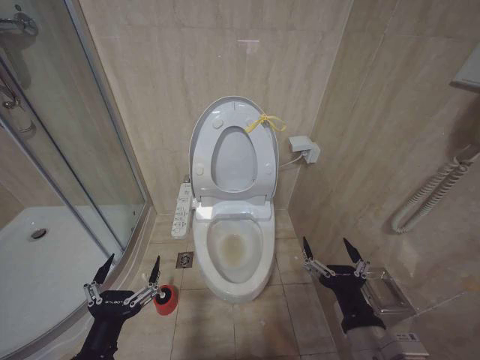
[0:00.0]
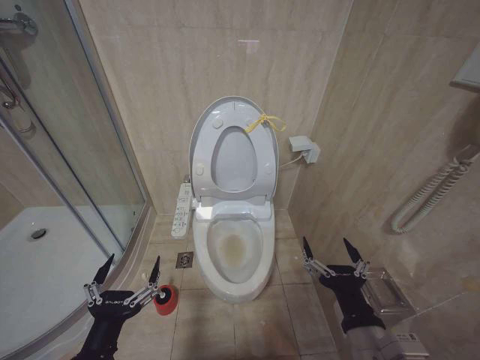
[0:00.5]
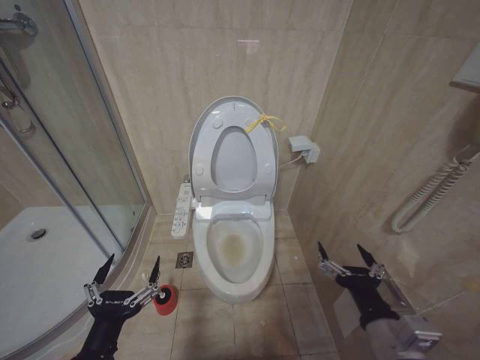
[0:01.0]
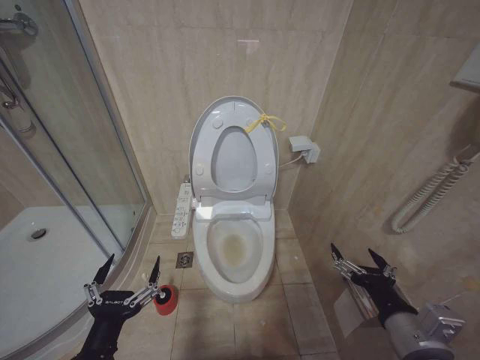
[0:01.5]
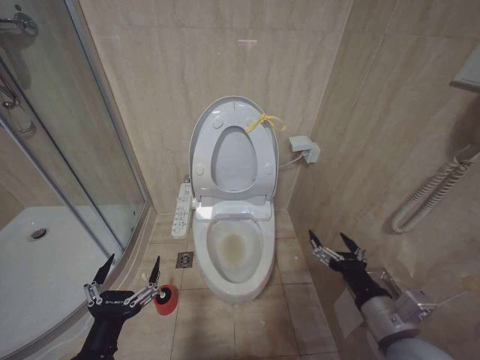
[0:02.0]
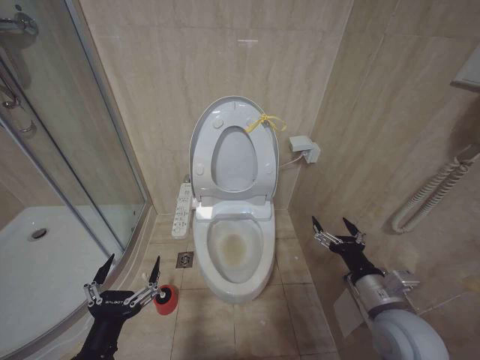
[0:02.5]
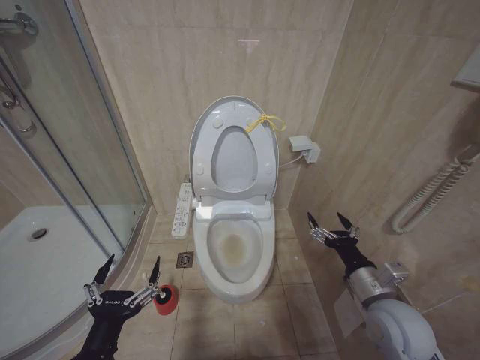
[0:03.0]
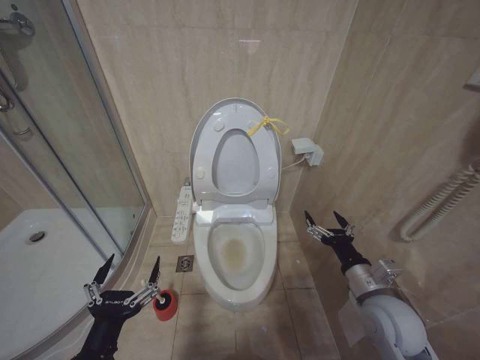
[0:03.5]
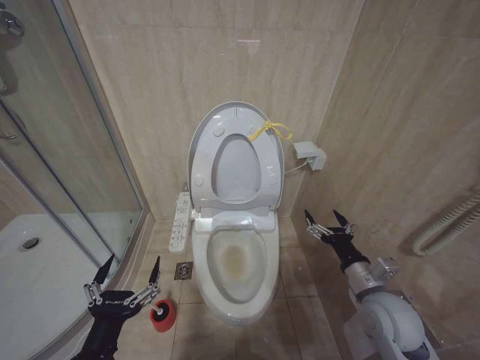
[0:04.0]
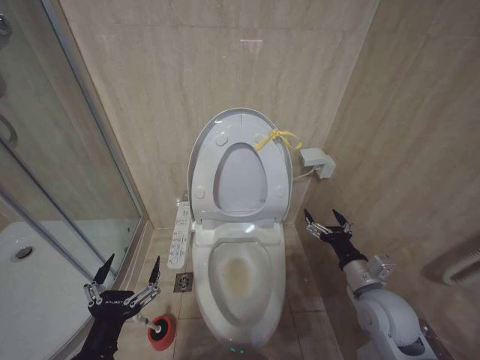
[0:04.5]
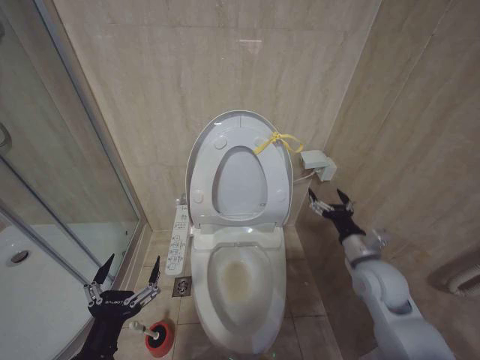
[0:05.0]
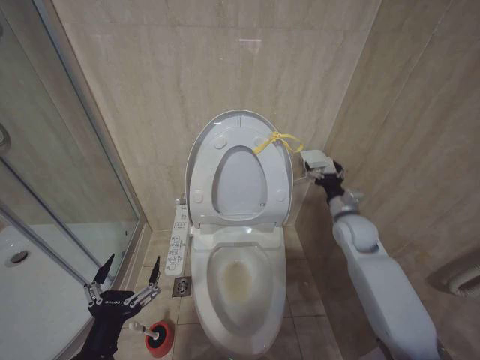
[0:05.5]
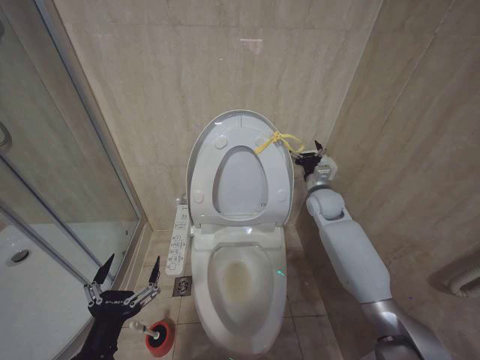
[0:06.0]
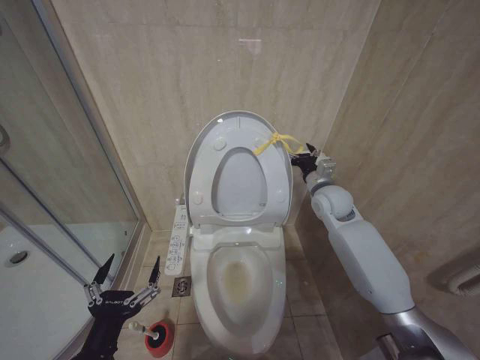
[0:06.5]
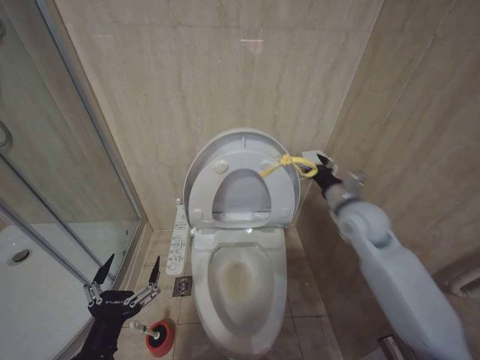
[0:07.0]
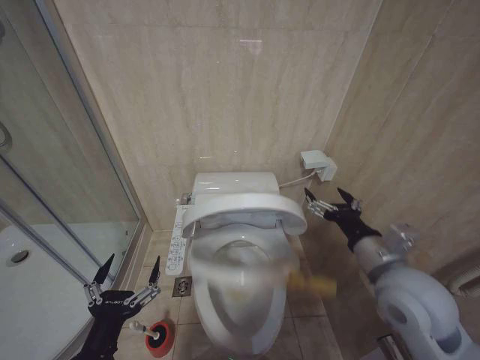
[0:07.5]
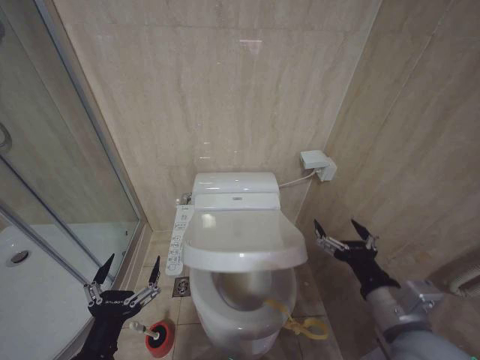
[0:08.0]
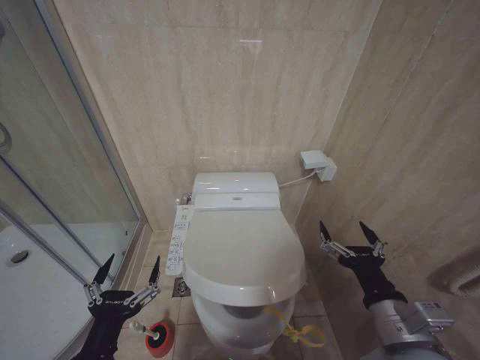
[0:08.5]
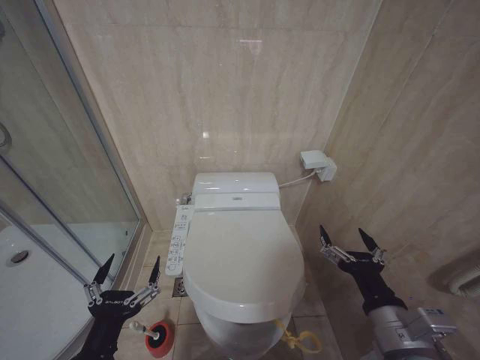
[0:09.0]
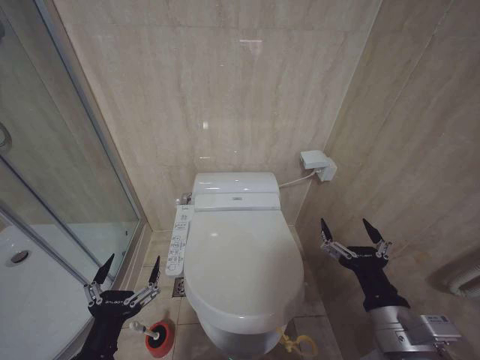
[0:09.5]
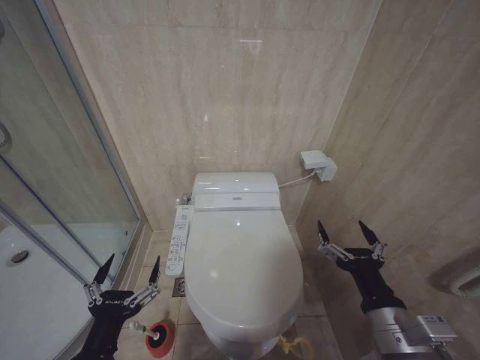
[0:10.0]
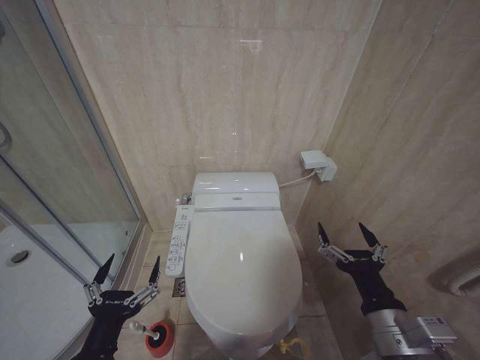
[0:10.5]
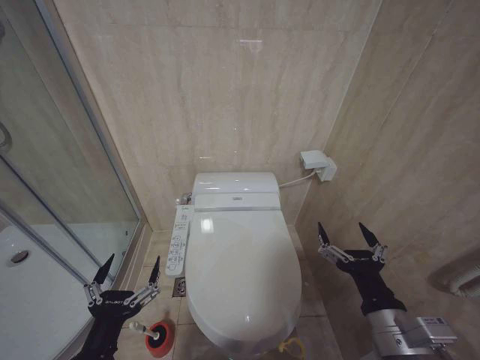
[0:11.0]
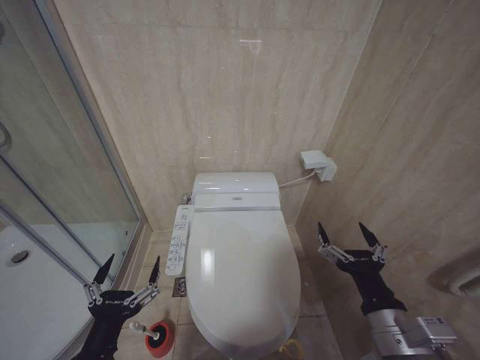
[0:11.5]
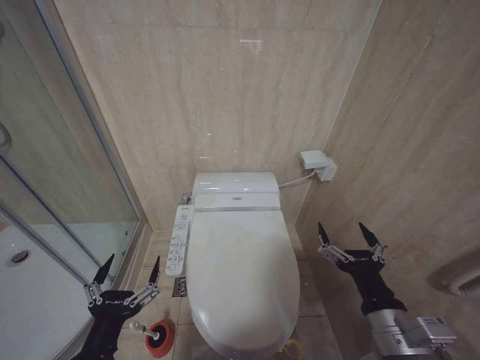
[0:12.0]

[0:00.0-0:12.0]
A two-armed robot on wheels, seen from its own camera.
Task of the whole recording: Open the toilet lid, clean the toilet bowl with a toilet brush, close the toilet lid, and flush.
0:00.0 to 0:02.0: The right gripper travels to the right by about 5 cm.
0:02.0 to 0:04.0: The right gripper travels forward by roughly 10 cm.
0:04.0 to 0:06.0: The right gripper moves forward, about 25 cm.
0:06.0 to 0:08.0: The right gripper travels backward by about 35 cm.
0:08.0 to 0:10.0: The grippers move only a little.
0:10.0 to 0:12.0: The two grippers keep their place.

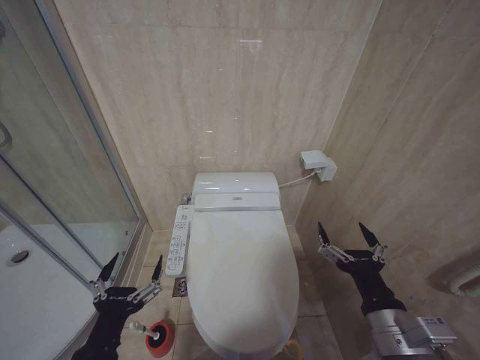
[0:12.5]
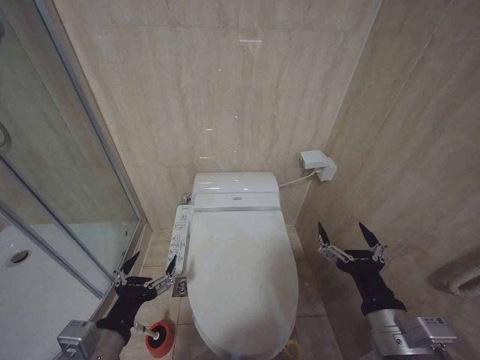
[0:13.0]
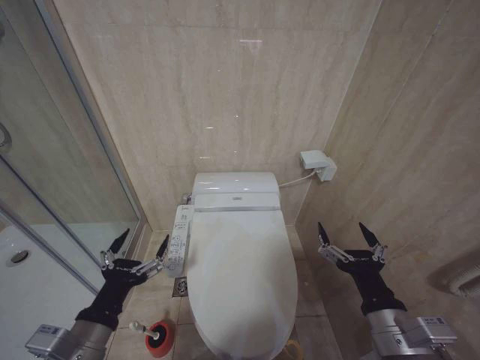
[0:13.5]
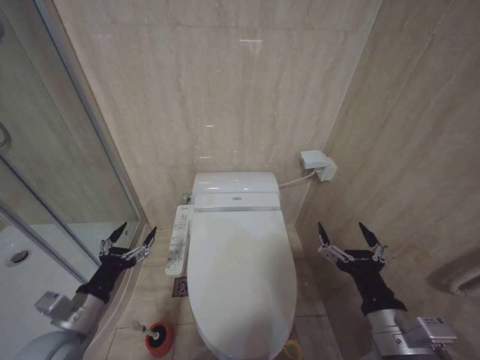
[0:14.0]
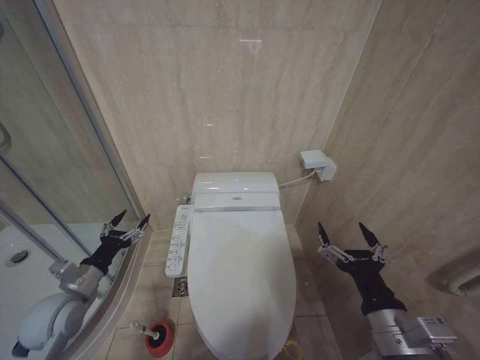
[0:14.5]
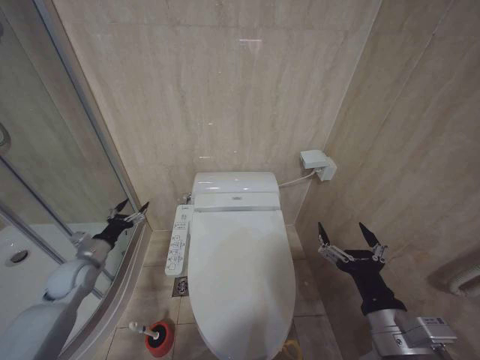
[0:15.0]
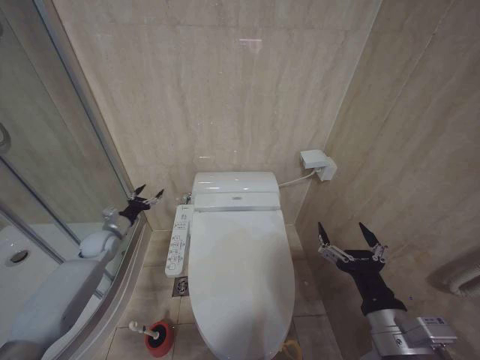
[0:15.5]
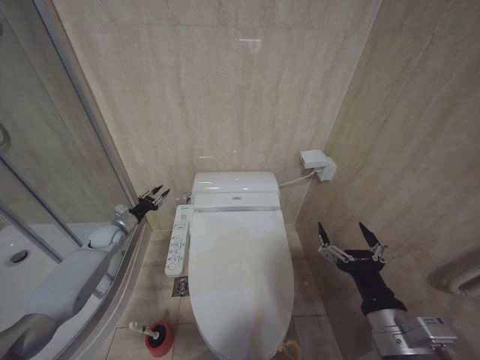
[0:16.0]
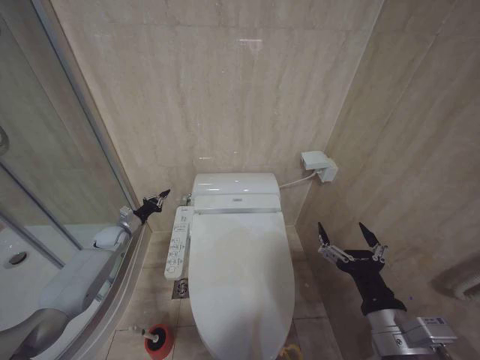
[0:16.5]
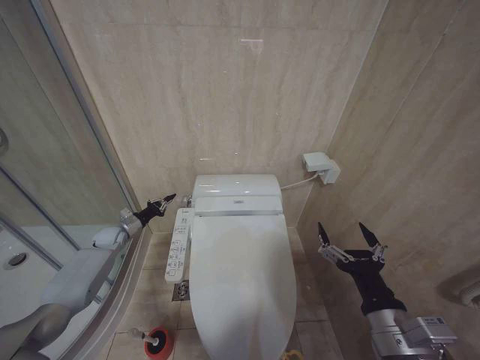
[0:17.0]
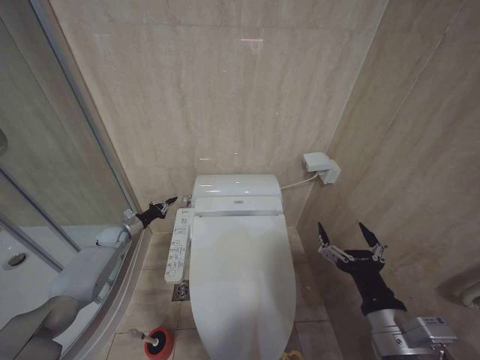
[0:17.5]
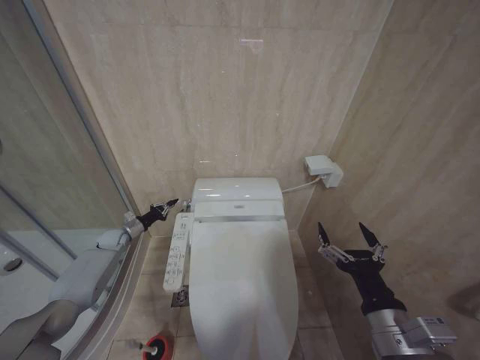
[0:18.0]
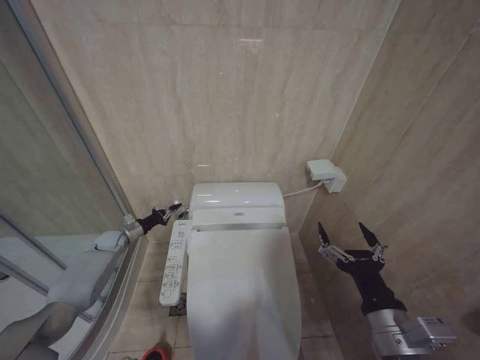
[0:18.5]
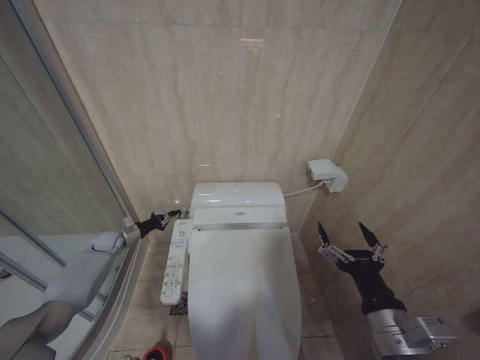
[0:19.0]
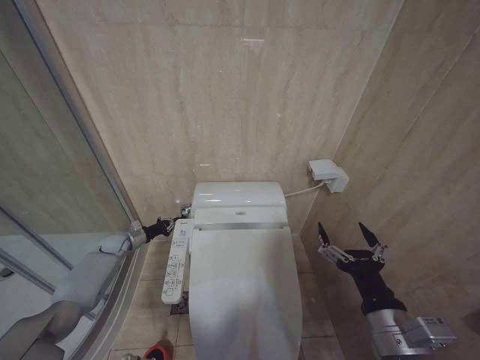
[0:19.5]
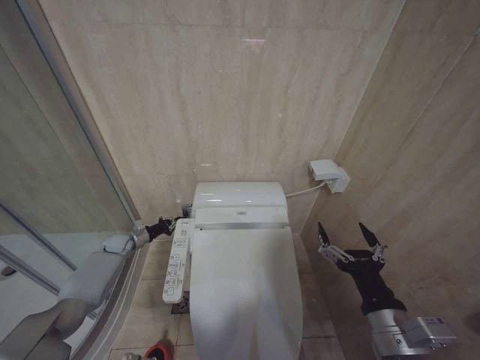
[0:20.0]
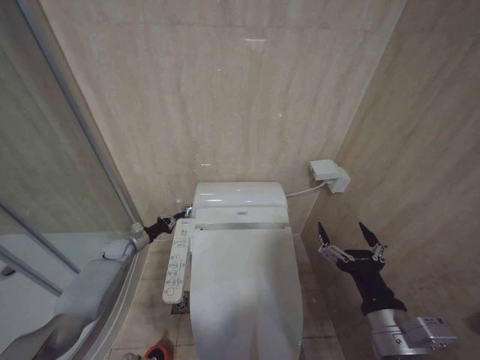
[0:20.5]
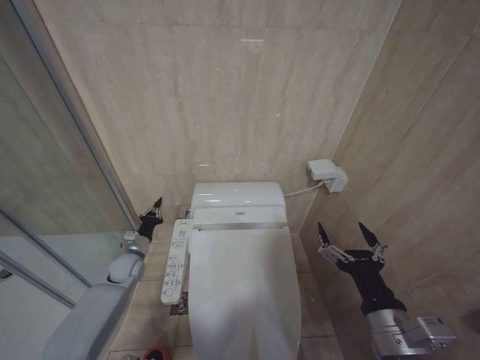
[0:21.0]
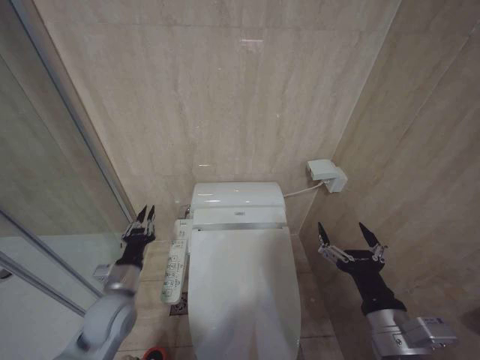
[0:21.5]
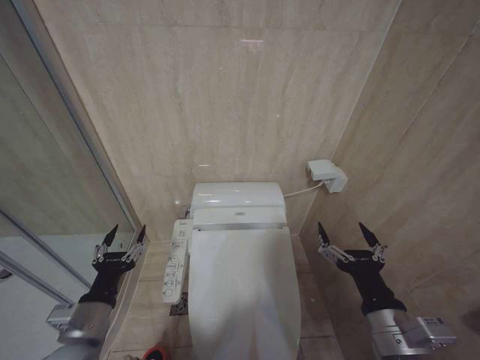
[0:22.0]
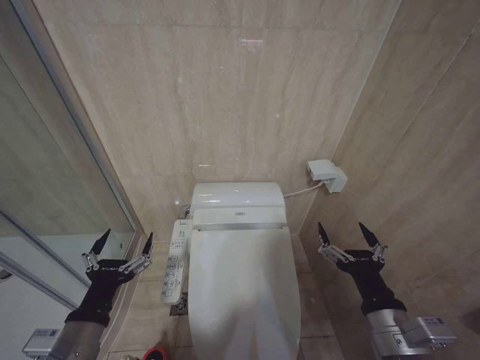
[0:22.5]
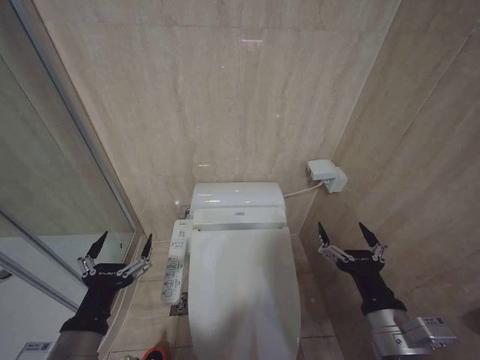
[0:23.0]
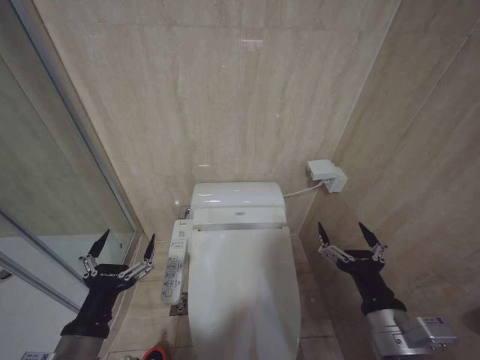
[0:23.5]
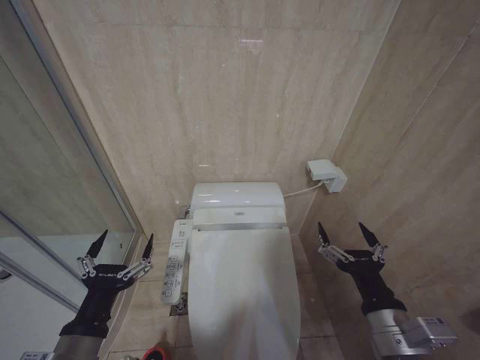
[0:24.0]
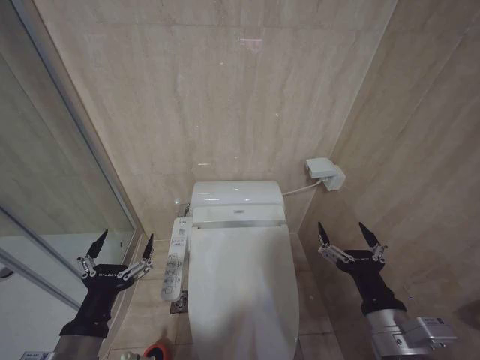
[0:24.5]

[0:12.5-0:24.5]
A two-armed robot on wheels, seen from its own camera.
Task of the whole recording: Open the toilet lid, clean the toilet bowl with a toilet brush, close the toilet lid, and flush.
0:12.5 to 0:14.5: The left gripper is displaced forward and to the left by about 20 cm.
0:14.5 to 0:16.5: The left gripper heads forward, covering approximately 25 cm, and closes up.
0:16.5 to 0:18.5: The grippers stay close to where they were, moving slightly.
0:18.5 to 0:20.5: The grippers move only a little.
0:20.5 to 0:22.5: The left gripper goes about 40 cm backward and upward, and opens up.
0:22.5 to 0:24.5: The grippers stay close to where they were, moving slightly.

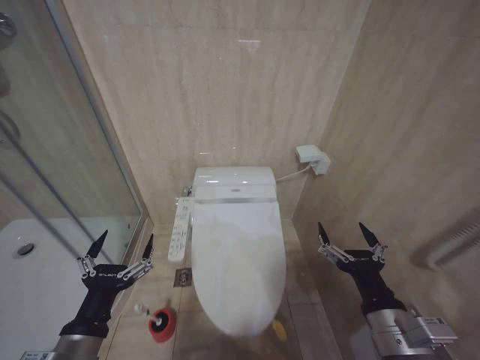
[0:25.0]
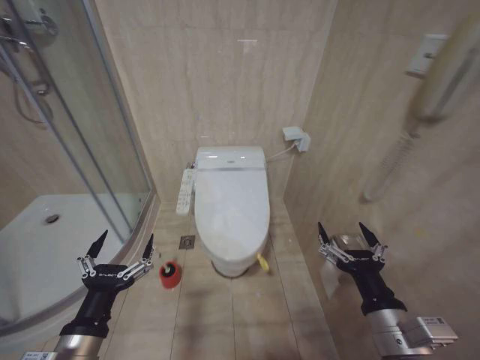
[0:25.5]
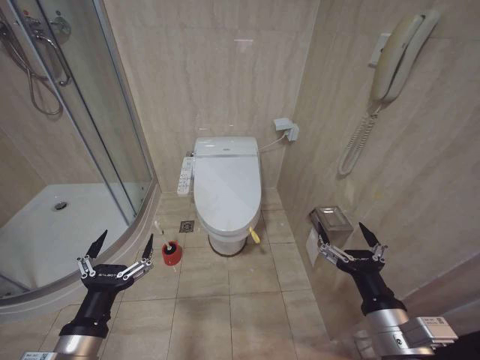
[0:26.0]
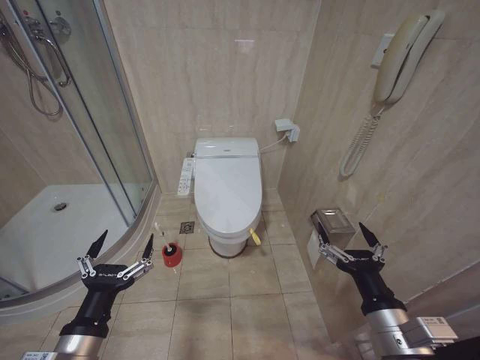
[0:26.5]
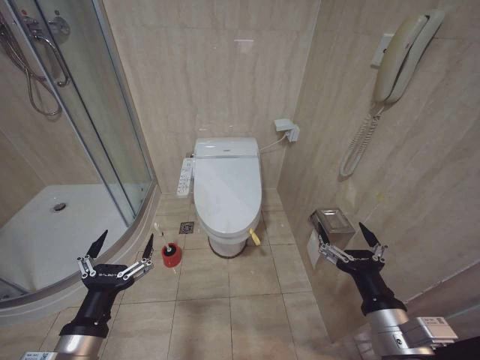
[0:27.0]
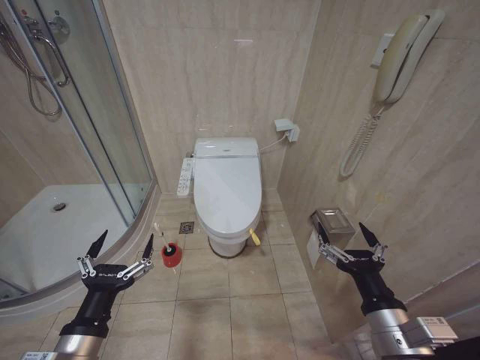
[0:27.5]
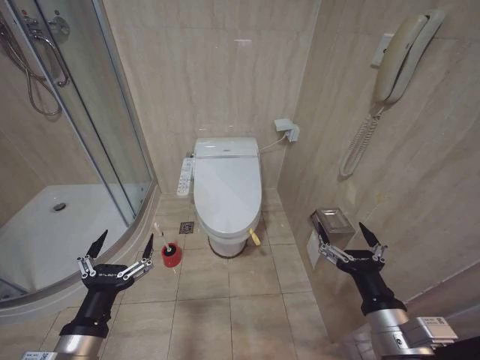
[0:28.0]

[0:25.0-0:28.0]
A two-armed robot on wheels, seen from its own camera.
Task of the whole recording: Open the toilet lid, clean the toilet bowl with a toilet brush, close the toilet lid, and flush.
0:26.5 to 0:28.0: The two grippers keep their place.
